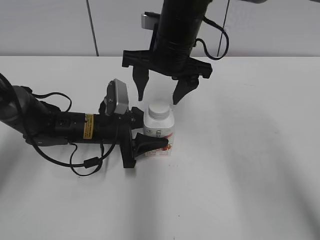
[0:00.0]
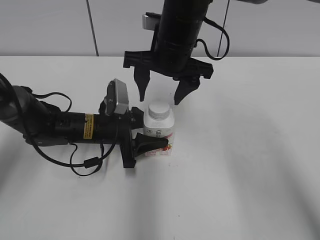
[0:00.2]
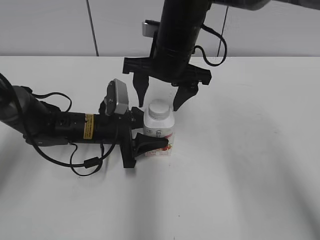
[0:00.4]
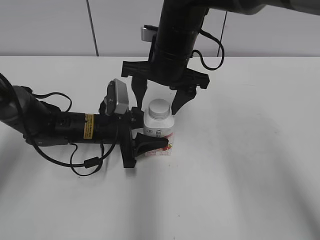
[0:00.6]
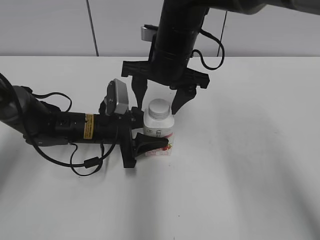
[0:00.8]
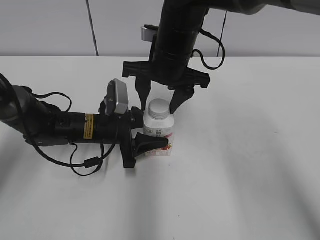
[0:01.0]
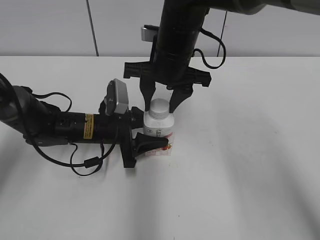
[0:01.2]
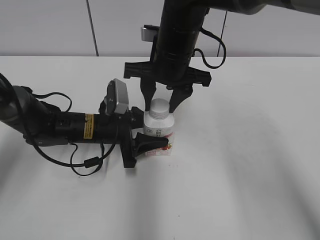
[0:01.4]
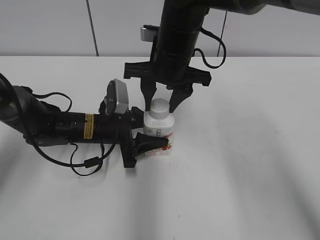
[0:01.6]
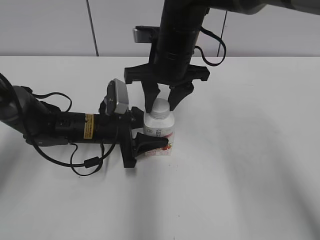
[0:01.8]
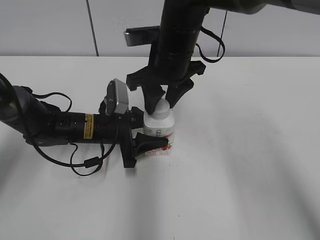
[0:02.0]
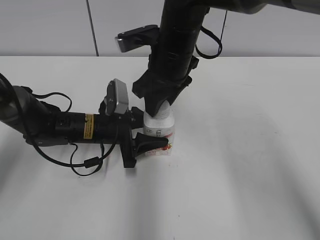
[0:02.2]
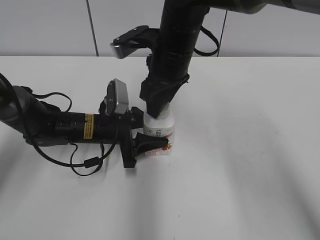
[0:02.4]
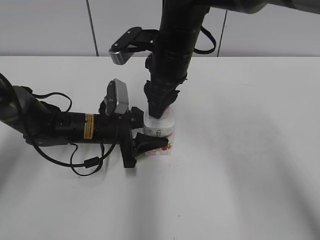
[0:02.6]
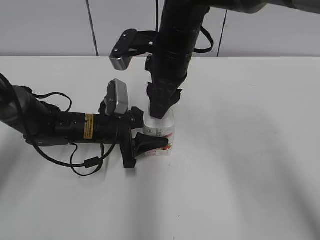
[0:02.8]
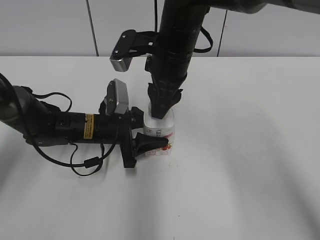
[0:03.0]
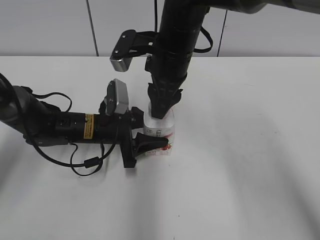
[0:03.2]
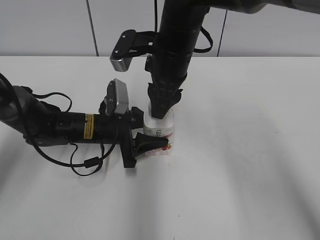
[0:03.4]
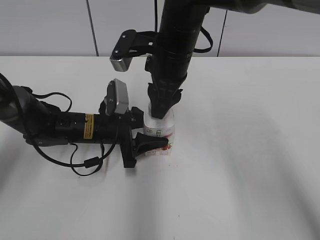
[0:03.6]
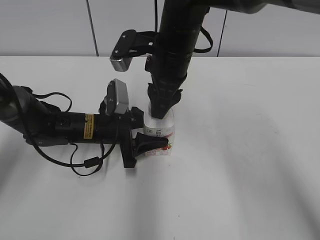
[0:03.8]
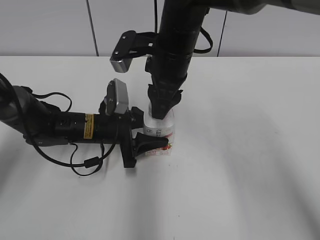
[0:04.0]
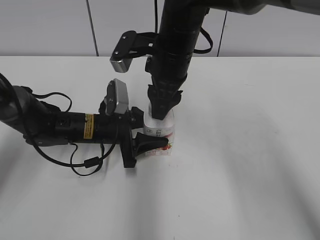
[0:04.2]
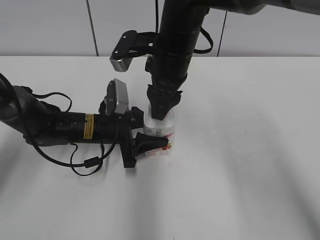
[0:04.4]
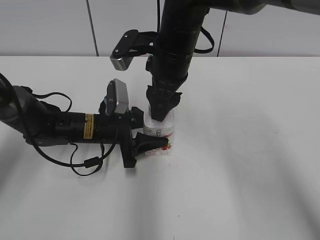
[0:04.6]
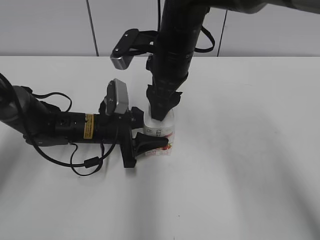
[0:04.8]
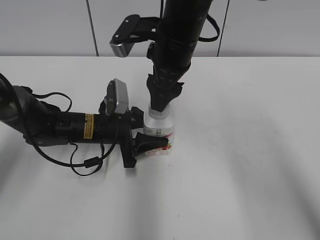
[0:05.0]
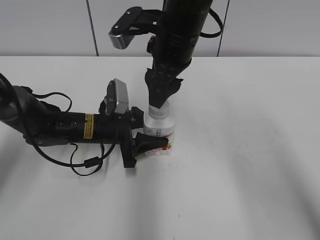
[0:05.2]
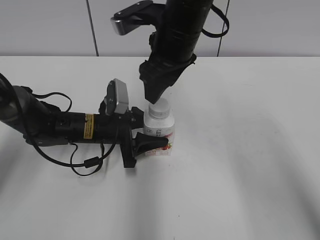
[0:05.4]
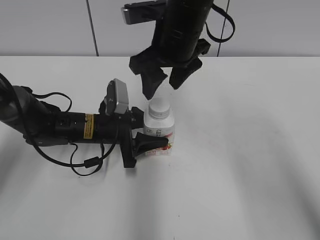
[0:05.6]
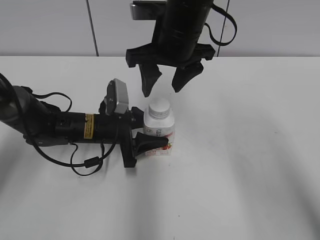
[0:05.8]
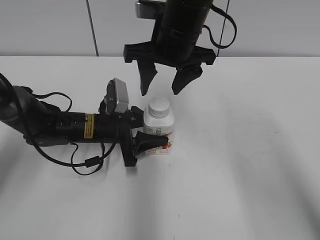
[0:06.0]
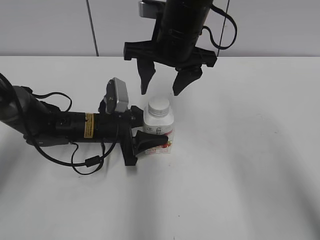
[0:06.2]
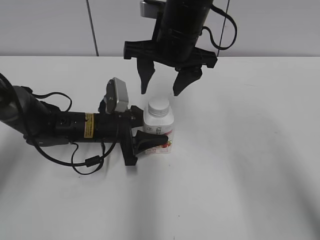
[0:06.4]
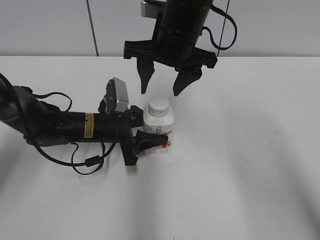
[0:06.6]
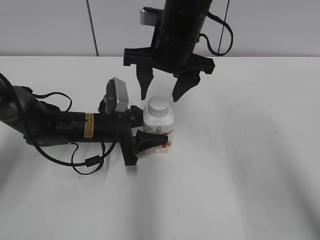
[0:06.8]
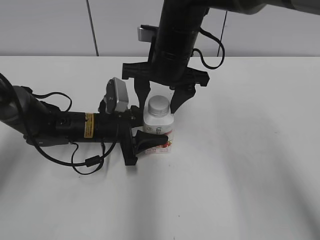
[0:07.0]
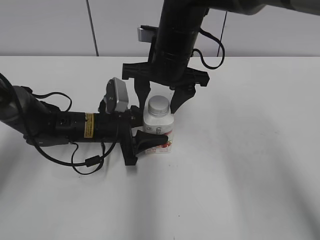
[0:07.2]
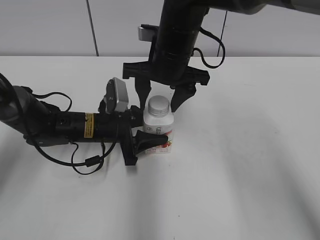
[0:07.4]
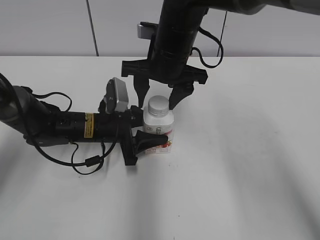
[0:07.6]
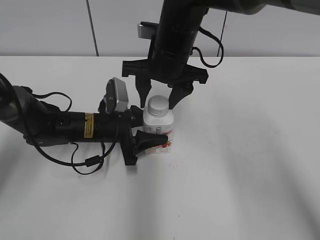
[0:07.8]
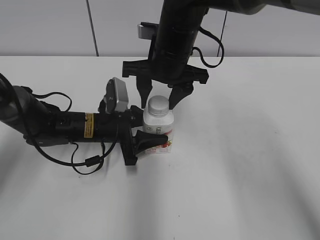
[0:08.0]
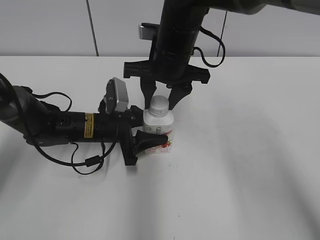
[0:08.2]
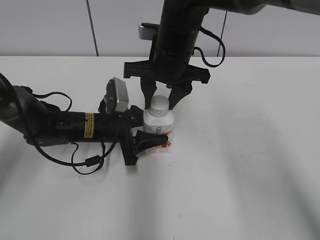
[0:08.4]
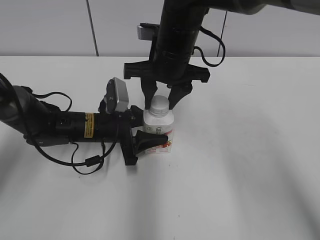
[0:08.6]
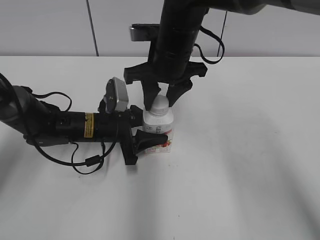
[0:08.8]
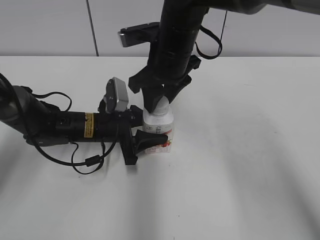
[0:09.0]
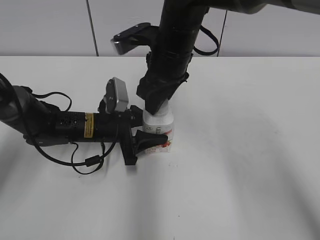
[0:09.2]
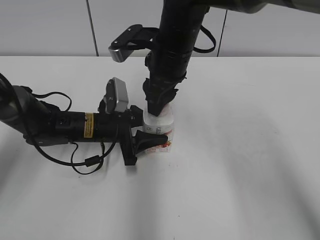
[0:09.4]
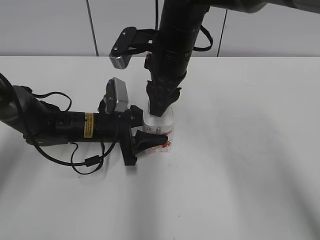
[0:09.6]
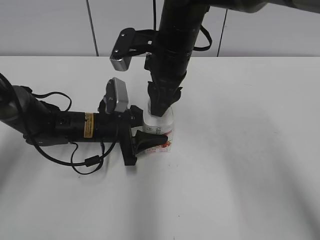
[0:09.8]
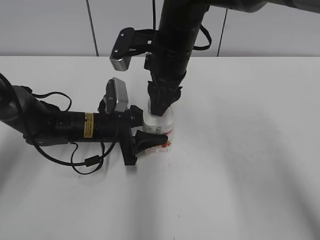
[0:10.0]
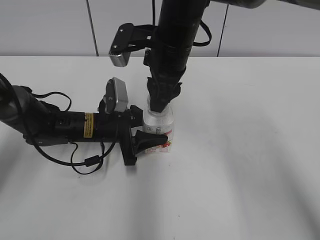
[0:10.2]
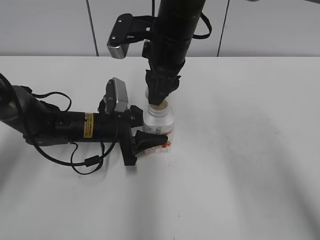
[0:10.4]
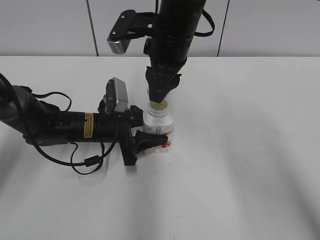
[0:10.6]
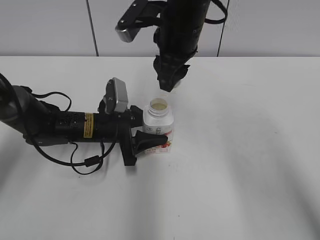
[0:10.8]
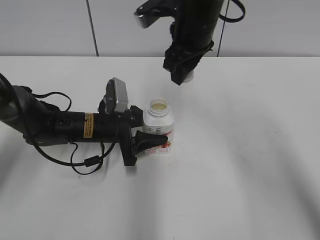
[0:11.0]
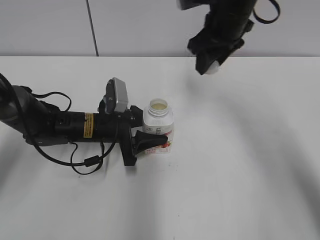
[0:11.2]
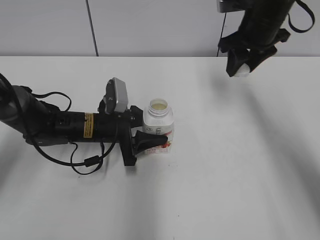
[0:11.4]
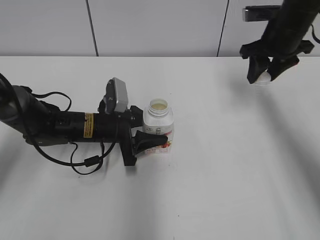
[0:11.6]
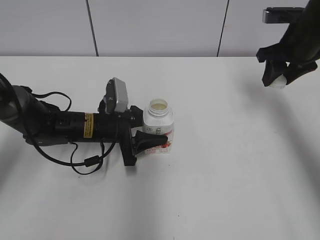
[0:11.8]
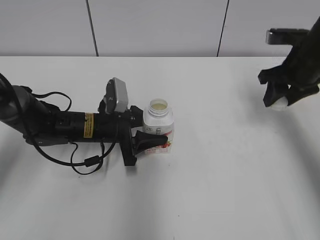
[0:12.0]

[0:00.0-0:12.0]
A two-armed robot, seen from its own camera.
0:00.0 to 0:01.6: The right gripper closes.
0:03.0 to 0:04.4: Neither gripper changes place.
0:04.4 to 0:06.0: The right gripper opens.
0:06.0 to 0:07.6: There are only small adjustments of the grippers.
0:07.6 to 0:09.0: The right gripper closes.
0:10.4 to 0:12.0: The right gripper moves to the right, approximately 25 cm.

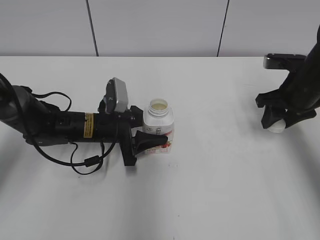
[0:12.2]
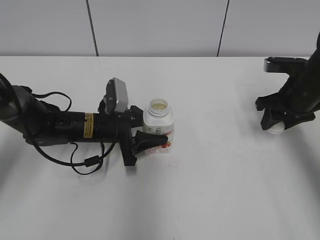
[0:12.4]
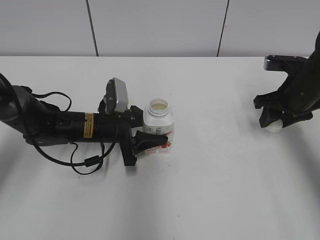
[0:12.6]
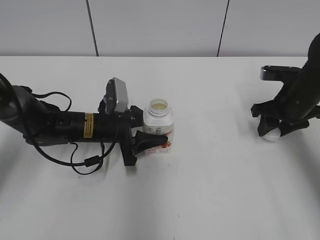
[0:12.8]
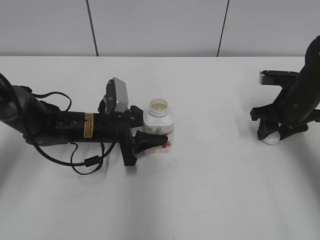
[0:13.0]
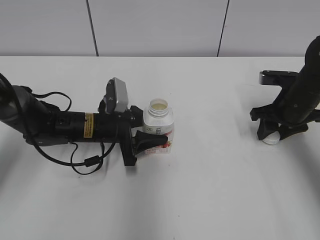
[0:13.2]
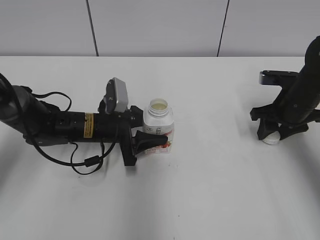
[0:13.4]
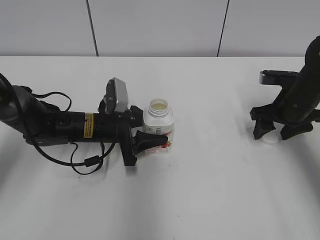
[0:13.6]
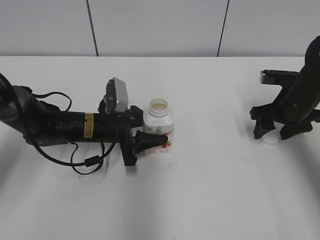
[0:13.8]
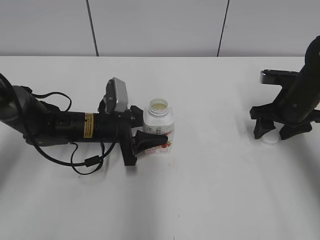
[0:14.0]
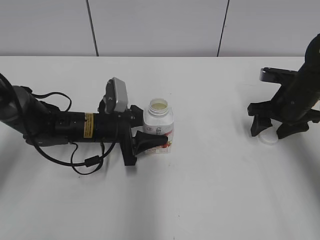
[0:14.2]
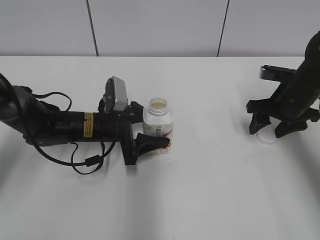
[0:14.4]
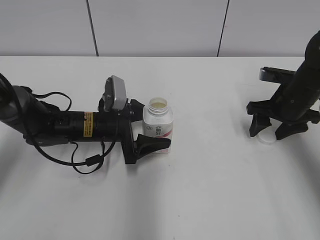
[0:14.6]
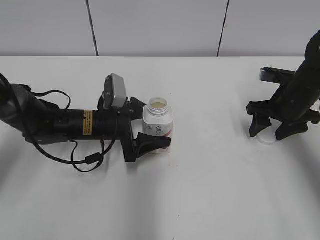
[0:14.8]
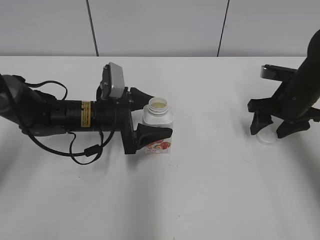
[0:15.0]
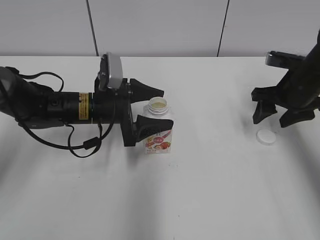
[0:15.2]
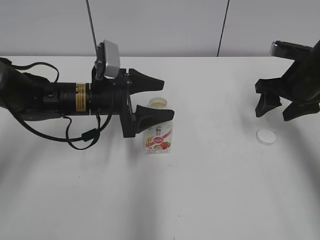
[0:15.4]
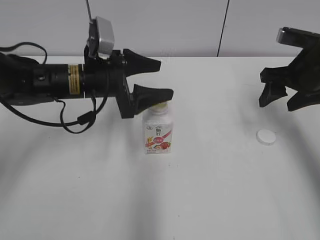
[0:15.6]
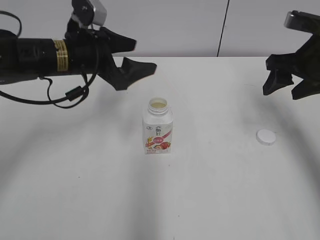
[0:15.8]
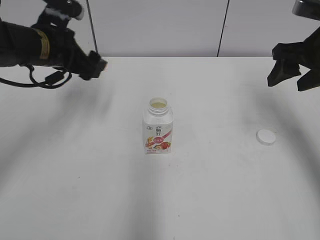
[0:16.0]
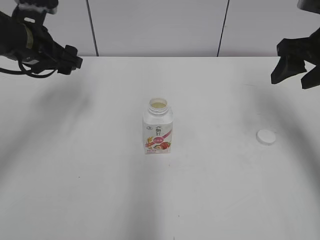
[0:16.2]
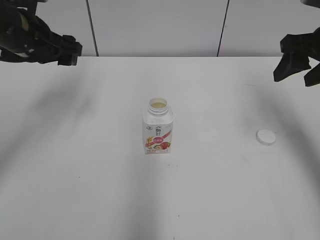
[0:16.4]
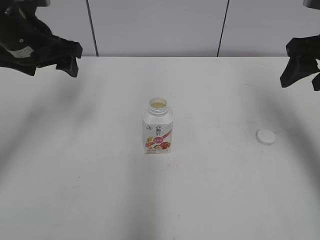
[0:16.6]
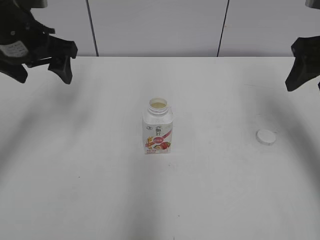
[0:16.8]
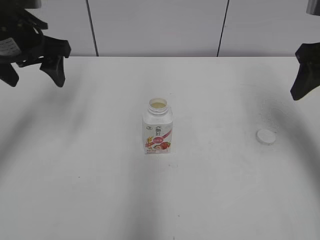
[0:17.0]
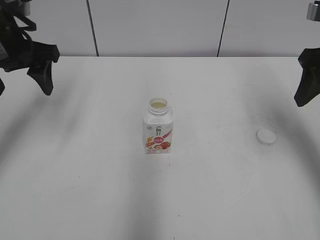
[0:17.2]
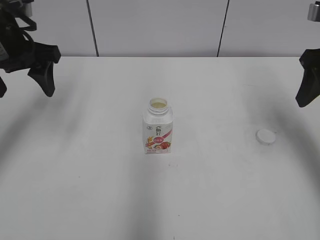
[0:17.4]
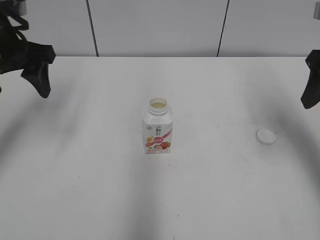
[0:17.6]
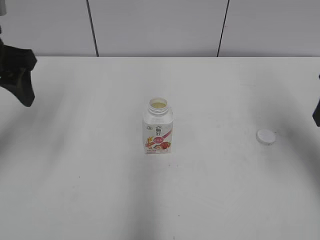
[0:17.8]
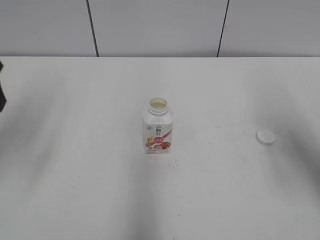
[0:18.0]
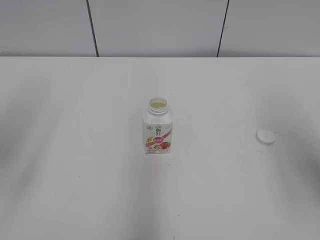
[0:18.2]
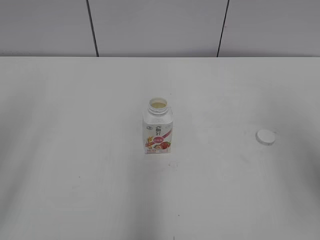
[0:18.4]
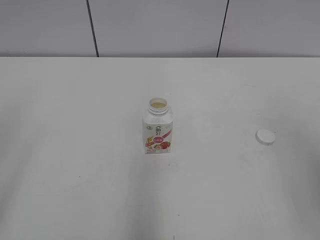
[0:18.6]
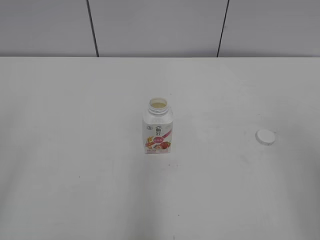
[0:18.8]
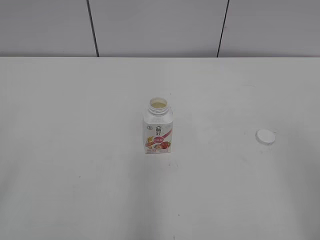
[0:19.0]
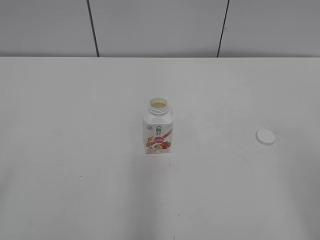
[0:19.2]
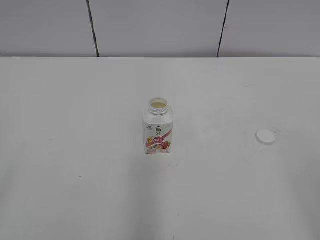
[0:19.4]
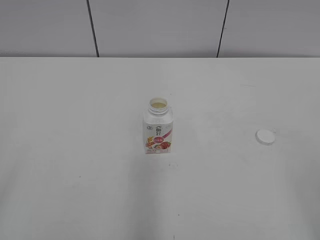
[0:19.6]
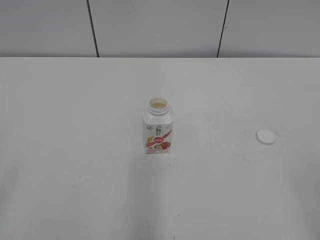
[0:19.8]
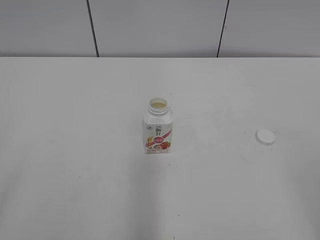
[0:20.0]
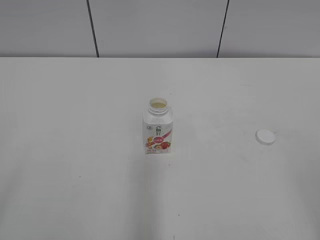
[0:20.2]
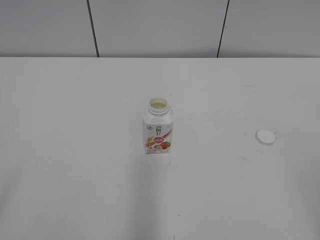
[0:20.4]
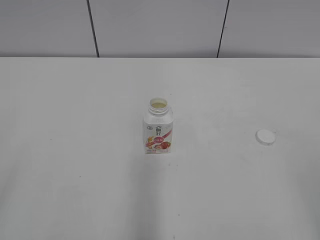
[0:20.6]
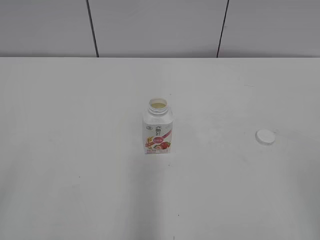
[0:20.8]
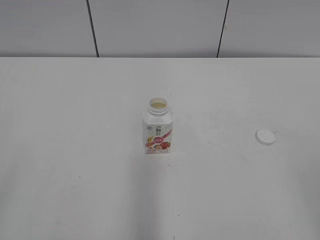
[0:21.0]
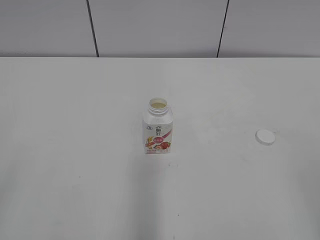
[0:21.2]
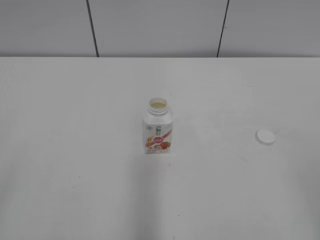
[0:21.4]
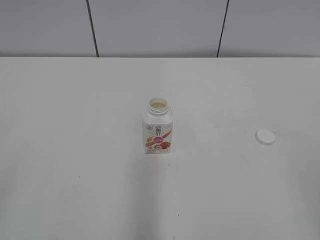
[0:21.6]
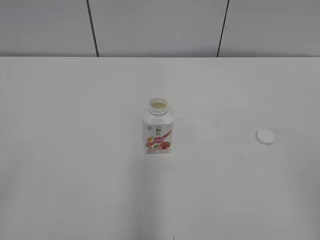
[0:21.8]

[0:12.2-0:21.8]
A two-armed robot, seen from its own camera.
Step, 0:12.2 to 0:13.8: Place the bottle cap on the right.
Step, 0:14.0 to 0:14.8: Place the Yili Changqing with the left hand.
0:12.2 to 0:13.8: The right gripper opens its fingers.
0:13.8 to 0:15.4: Both grippers move upward, roughly 5 cm. The left gripper opens its fingers.
0:15.4 to 0:17.0: The right gripper shifts approximately 10 cm upward and backward. The left gripper goes approximately 20 cm upward and to the left.
0:17.0 to 0:18.6: The two grippers go roughly 25 cm backward.

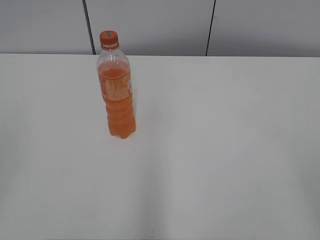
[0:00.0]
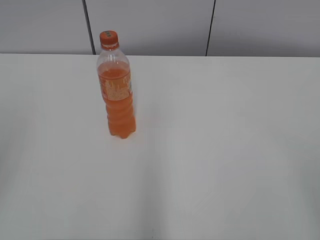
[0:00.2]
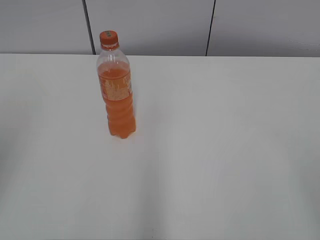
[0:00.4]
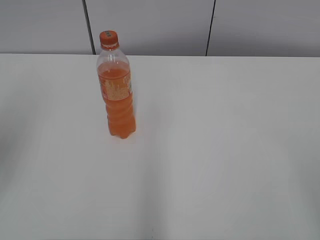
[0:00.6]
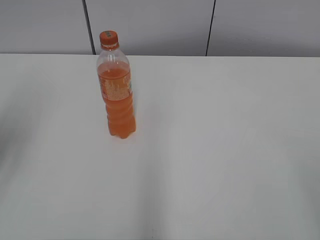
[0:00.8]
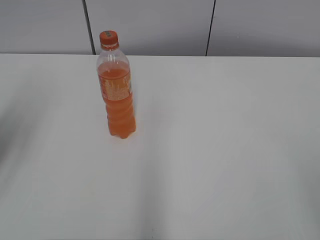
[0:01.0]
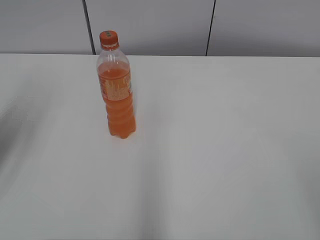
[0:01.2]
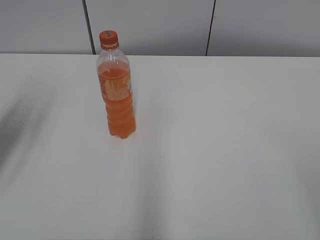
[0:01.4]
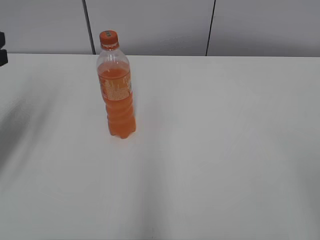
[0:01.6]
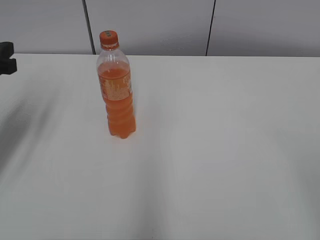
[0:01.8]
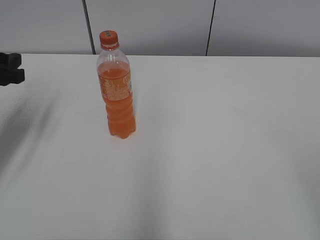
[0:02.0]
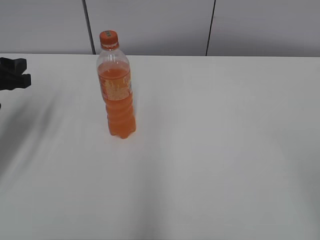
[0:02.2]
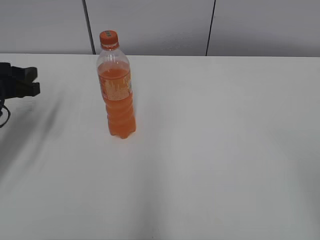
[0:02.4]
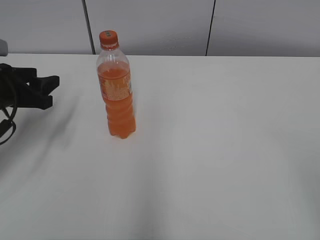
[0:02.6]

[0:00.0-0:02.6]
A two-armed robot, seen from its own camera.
0:00.0 to 0:01.2: The left gripper heads forward, covering approximately 20 cm.
0:01.2 to 0:02.6: The left gripper is displaced downward and forward by some 15 cm.
